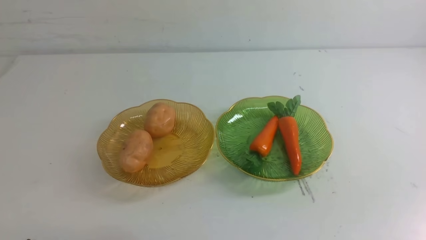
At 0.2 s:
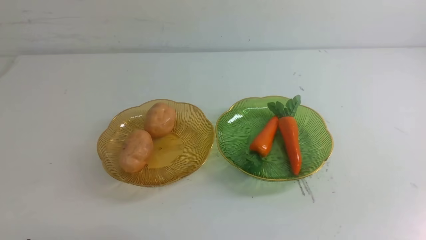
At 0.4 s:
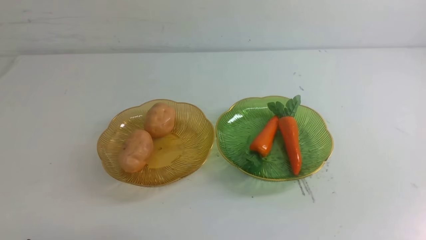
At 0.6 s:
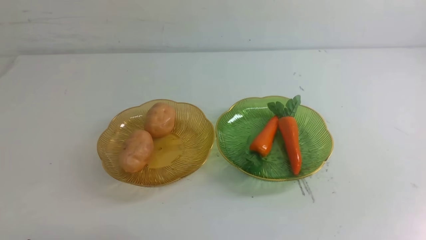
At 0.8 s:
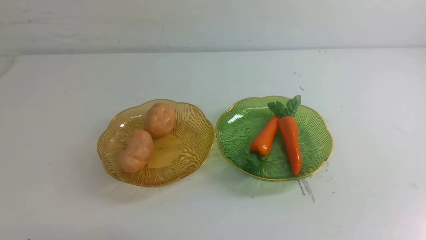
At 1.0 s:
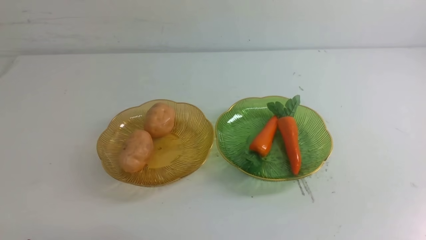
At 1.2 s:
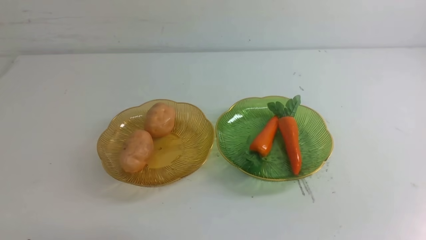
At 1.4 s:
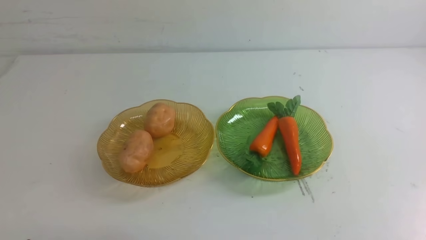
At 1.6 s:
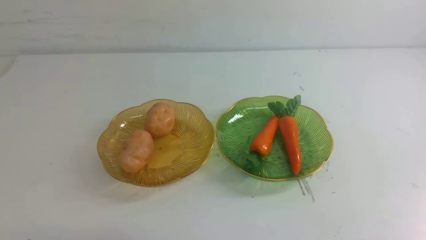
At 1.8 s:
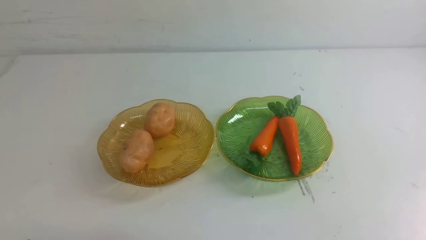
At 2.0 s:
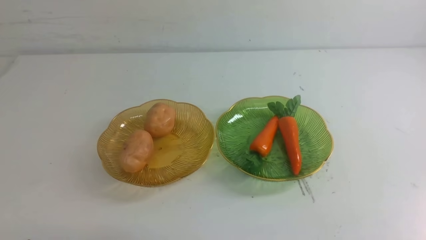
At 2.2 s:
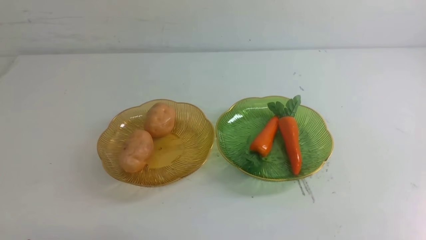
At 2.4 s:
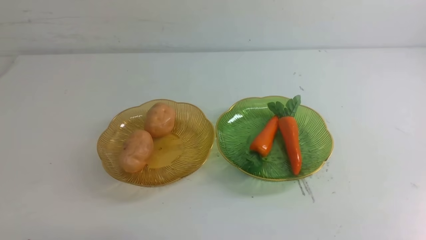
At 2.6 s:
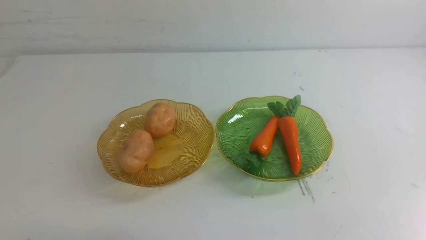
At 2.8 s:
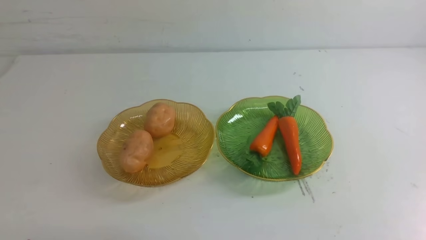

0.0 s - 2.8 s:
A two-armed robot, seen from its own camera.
1.4 s - 2.8 s: The two grippers keep their place.
